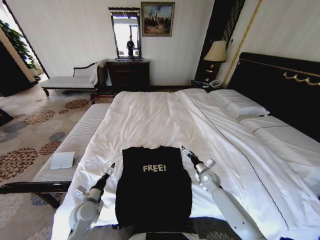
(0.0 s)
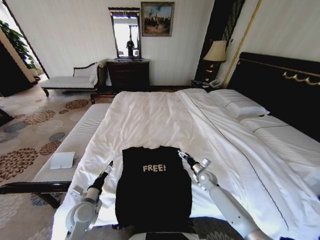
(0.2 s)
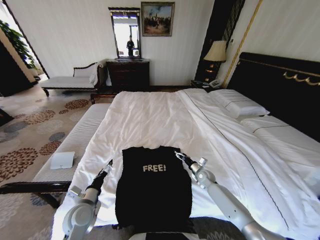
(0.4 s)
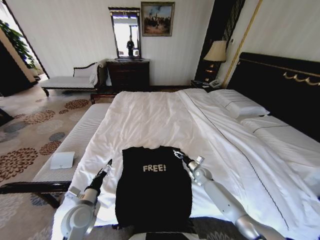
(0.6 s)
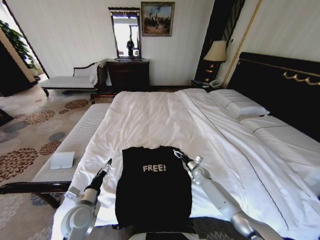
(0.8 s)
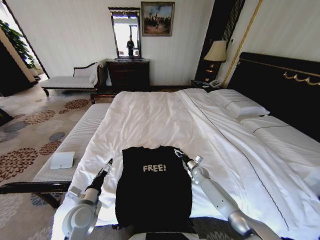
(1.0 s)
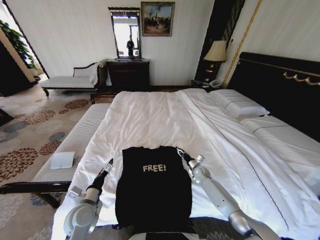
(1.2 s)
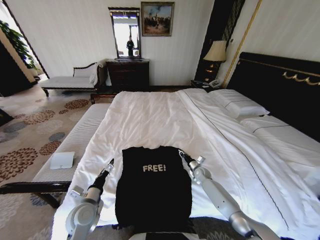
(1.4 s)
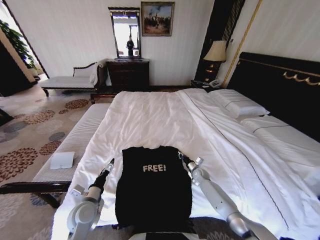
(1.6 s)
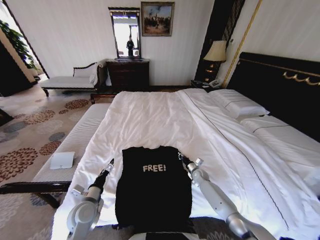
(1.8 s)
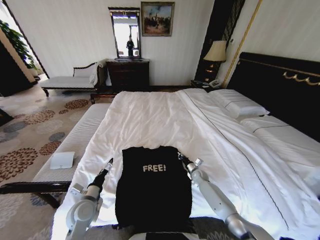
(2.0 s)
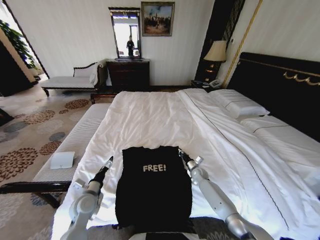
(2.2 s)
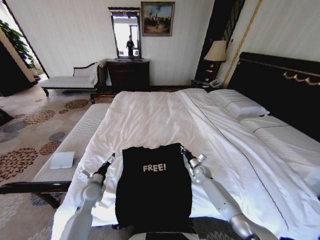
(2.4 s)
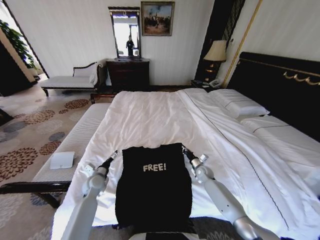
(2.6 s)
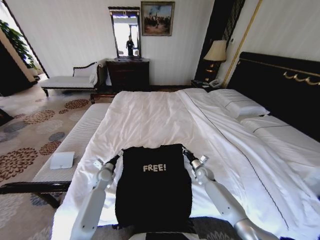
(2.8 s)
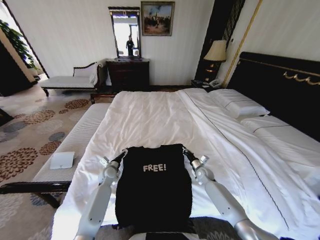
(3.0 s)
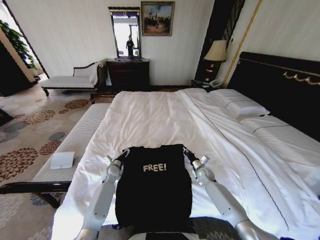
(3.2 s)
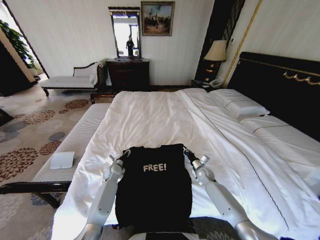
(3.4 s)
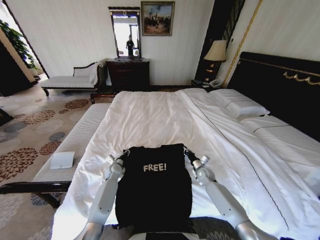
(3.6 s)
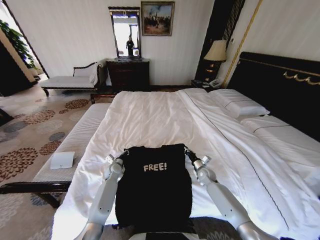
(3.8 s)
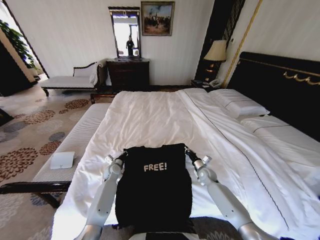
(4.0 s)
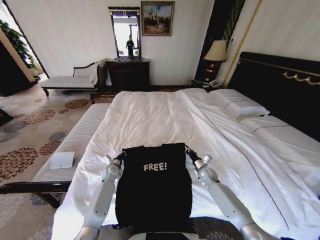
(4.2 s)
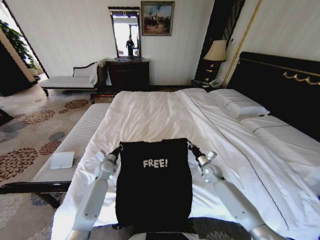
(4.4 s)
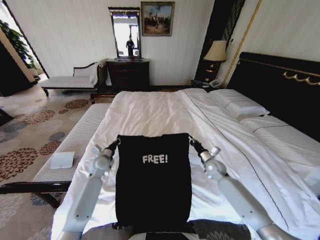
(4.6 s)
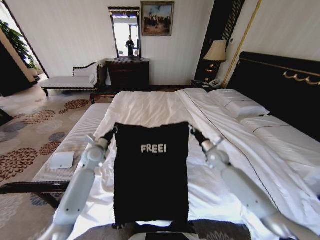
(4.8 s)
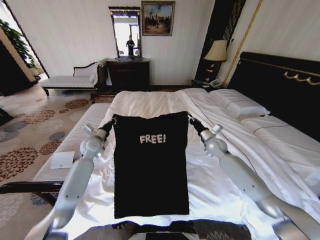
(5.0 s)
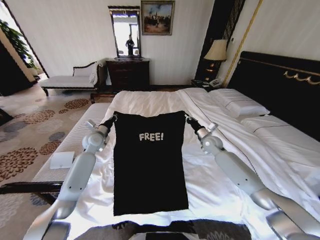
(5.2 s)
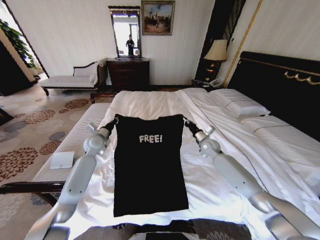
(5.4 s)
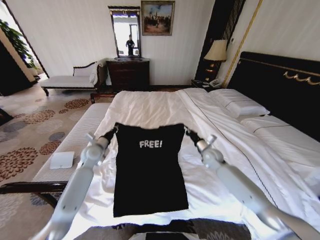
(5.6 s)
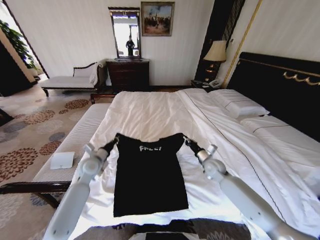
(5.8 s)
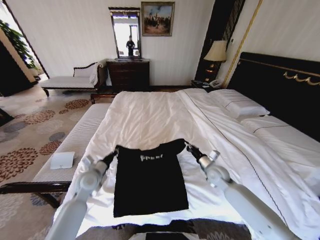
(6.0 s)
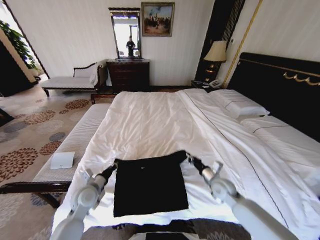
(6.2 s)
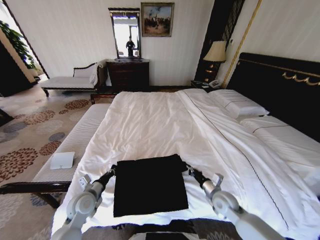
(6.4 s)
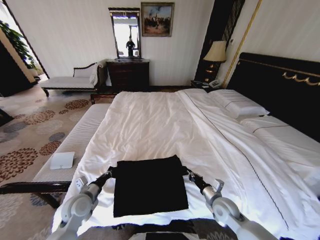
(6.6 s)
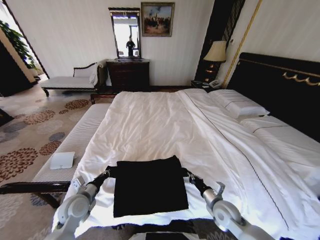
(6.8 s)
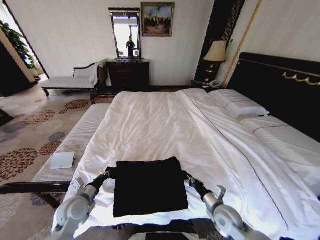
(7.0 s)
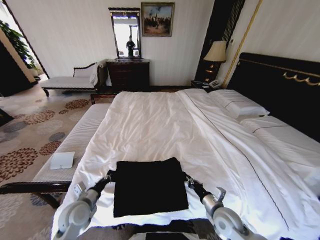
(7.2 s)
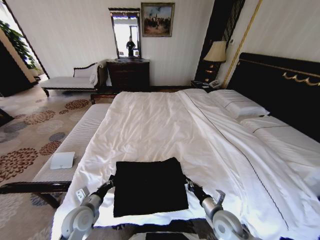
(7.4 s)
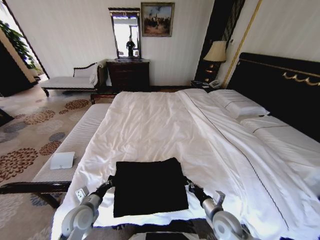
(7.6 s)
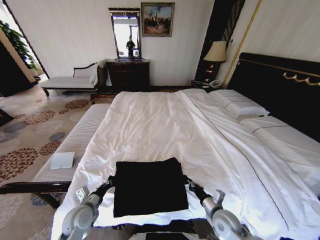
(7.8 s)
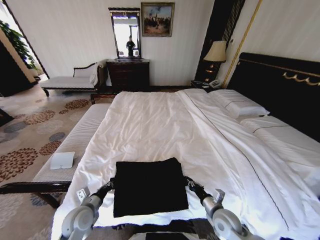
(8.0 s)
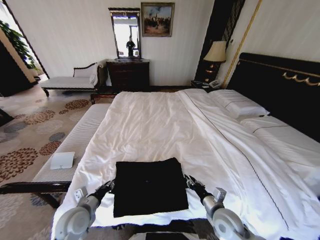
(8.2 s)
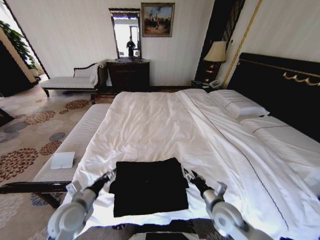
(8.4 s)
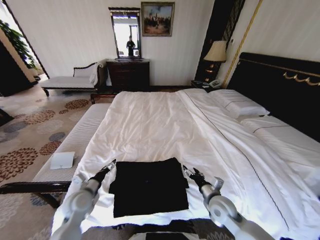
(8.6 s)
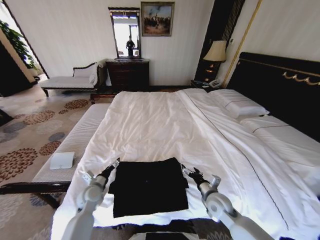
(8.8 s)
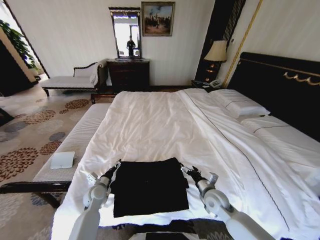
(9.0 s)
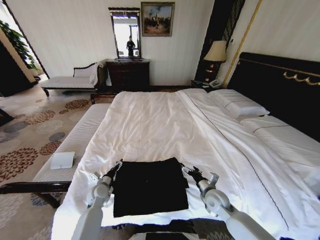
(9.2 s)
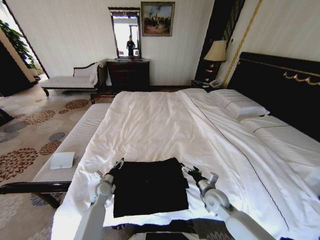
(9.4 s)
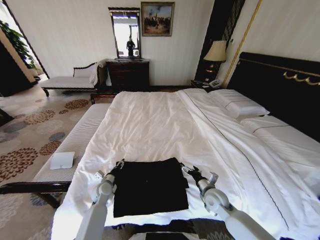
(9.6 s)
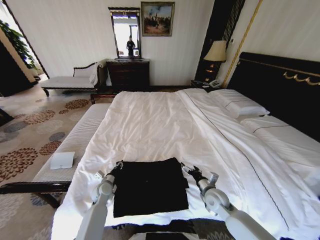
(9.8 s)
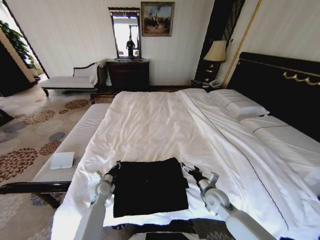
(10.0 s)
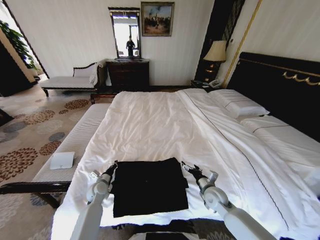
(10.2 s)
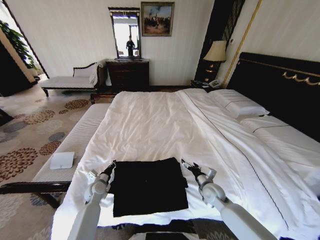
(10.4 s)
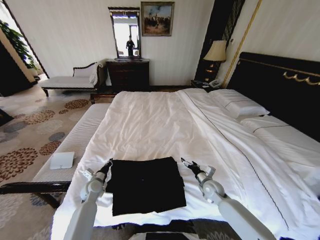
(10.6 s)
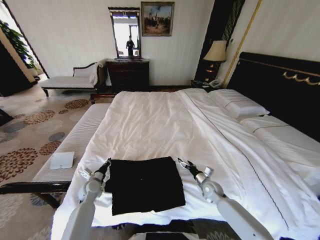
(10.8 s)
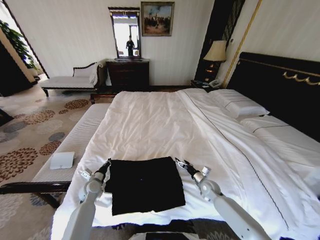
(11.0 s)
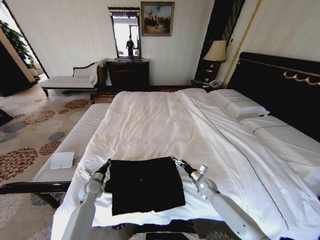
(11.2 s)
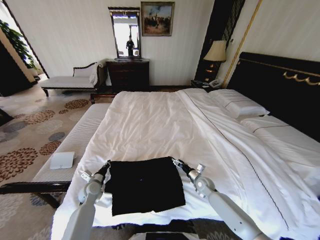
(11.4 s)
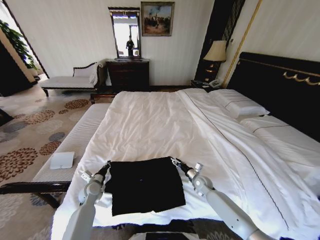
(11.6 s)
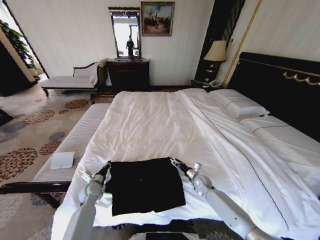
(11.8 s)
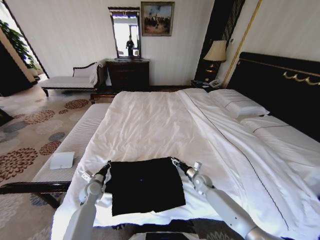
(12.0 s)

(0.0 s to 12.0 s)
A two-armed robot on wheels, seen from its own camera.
Task of the whole recording: Fold the clothes on the bed.
0.0 s - 1.6 s: The right gripper goes roughly 10 cm downward and forward, and closes up.
1.6 s - 3.0 s: The left gripper is displaced forward by some 20 cm.
3.0 s - 4.4 s: The right gripper goes some 5 cm upward, while the left gripper closes its fingers.
4.4 s - 6.0 s: The left gripper is displaced backward and upward by some 15 cm. The right gripper goes some 5 cm upward, and travels forward and back again, roughly 10 cm each way.
6.0 s - 7.6 s: The right gripper moves backward, about 20 cm, while the left gripper moves backward and downward, about 10 cm.
7.6 s - 9.0 s: The right gripper goes some 10 cm forward, and opens up. The left gripper travels forward and downward by some 10 cm, and opens.
9.0 s - 10.4 s: The left gripper closes.
10.4 s - 12.0 s: The right gripper is displaced forward and downward by approximately 10 cm, and closes.

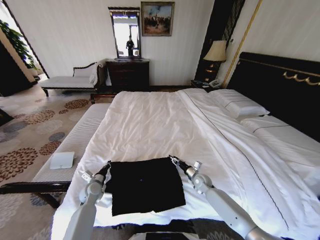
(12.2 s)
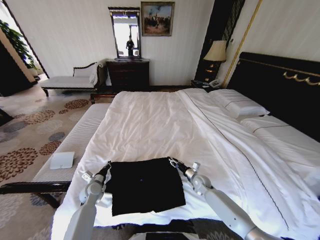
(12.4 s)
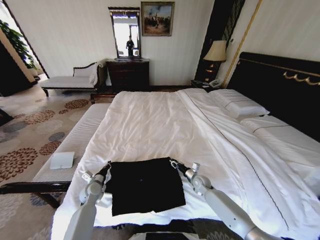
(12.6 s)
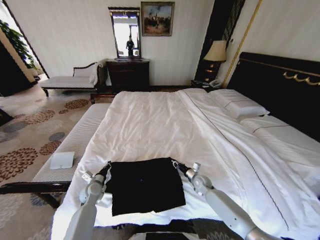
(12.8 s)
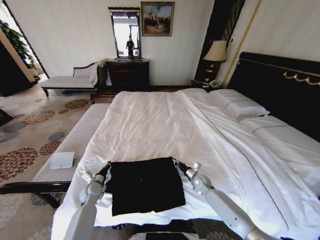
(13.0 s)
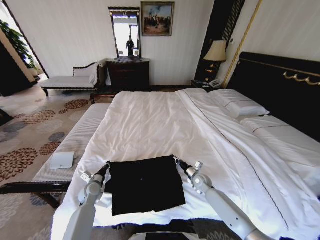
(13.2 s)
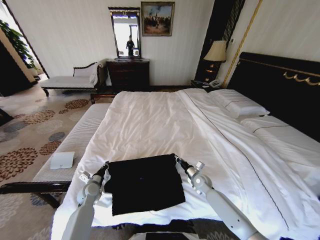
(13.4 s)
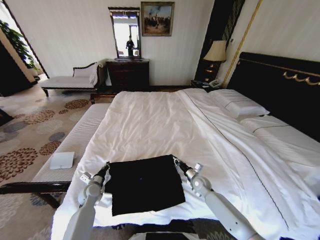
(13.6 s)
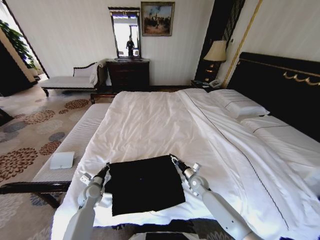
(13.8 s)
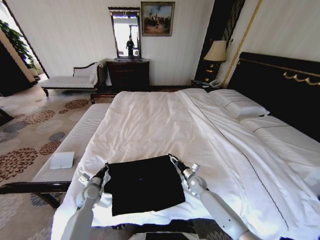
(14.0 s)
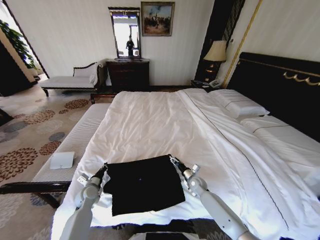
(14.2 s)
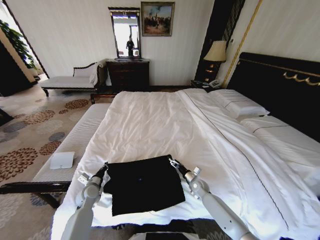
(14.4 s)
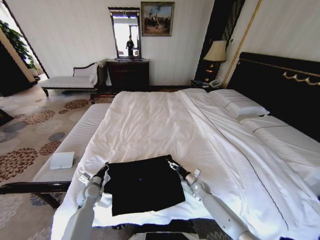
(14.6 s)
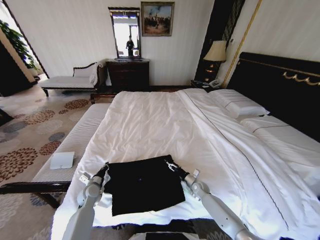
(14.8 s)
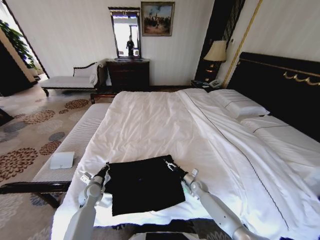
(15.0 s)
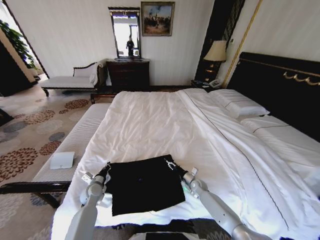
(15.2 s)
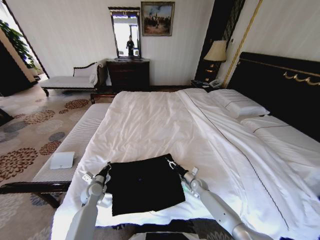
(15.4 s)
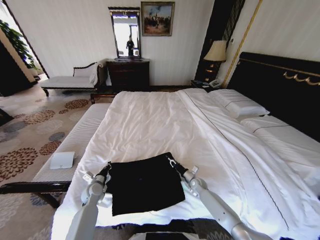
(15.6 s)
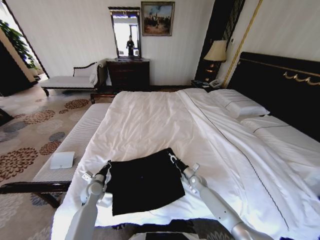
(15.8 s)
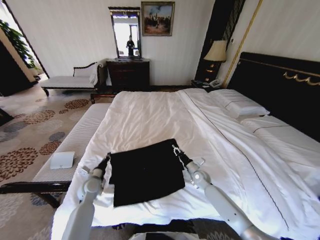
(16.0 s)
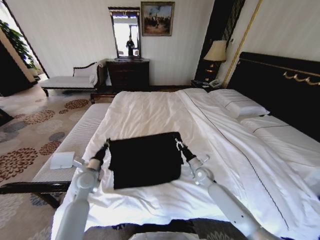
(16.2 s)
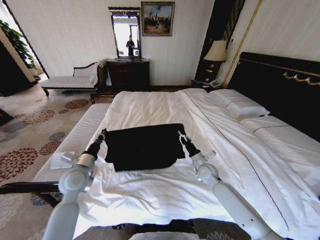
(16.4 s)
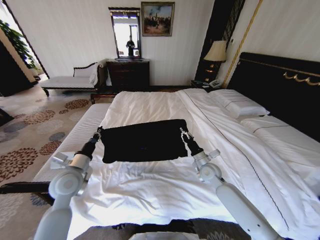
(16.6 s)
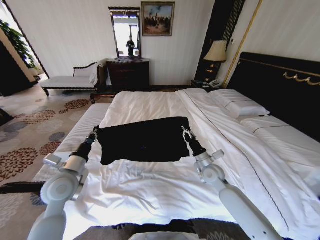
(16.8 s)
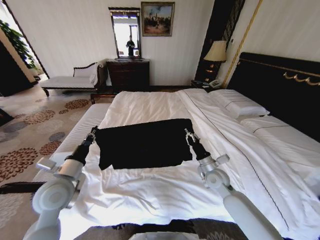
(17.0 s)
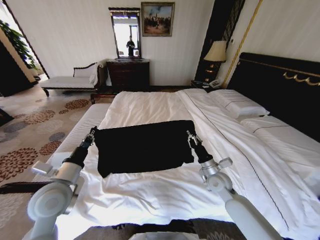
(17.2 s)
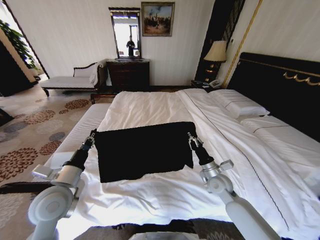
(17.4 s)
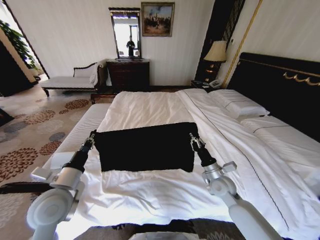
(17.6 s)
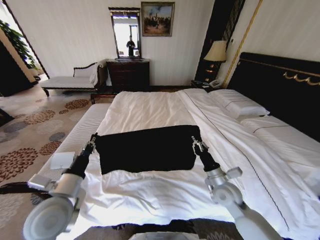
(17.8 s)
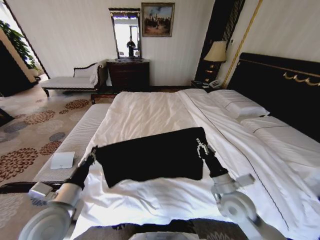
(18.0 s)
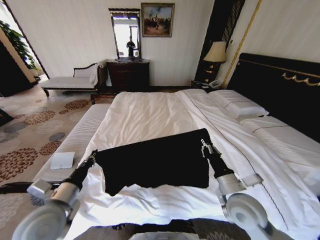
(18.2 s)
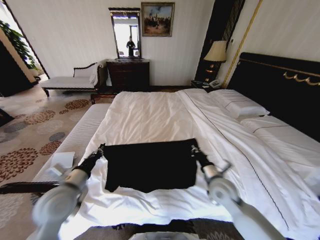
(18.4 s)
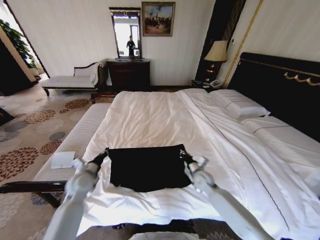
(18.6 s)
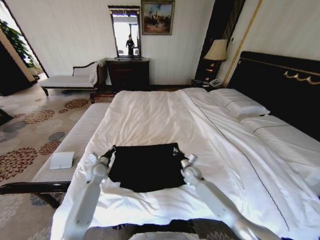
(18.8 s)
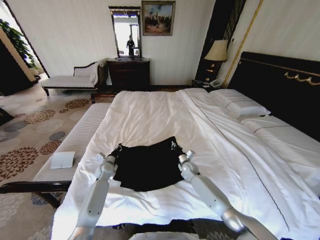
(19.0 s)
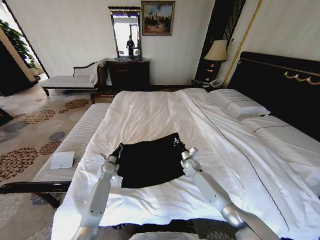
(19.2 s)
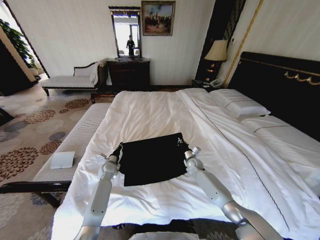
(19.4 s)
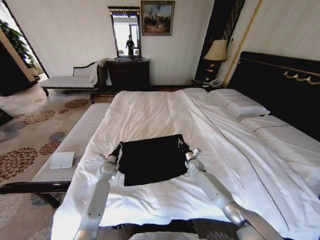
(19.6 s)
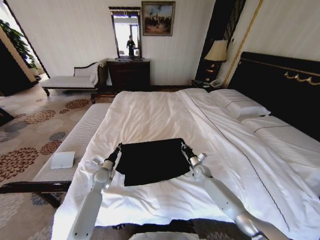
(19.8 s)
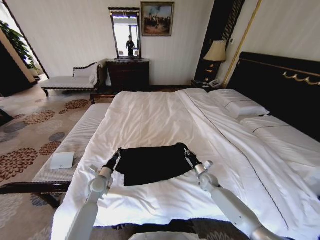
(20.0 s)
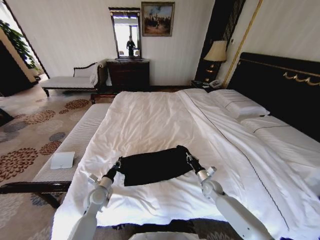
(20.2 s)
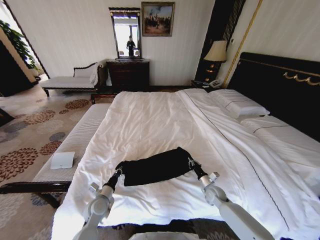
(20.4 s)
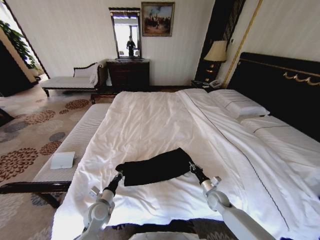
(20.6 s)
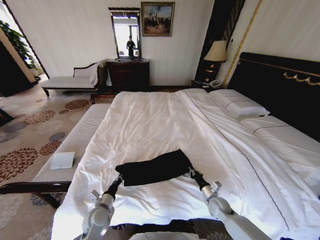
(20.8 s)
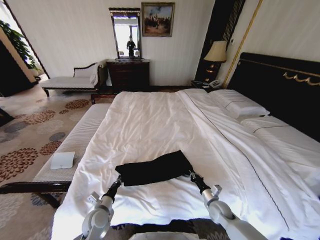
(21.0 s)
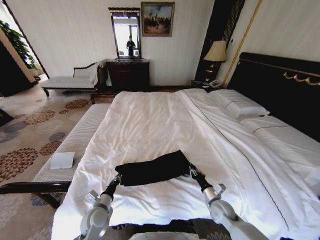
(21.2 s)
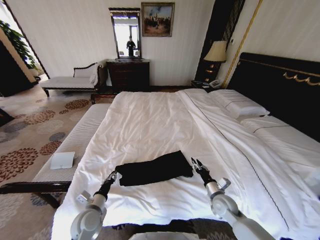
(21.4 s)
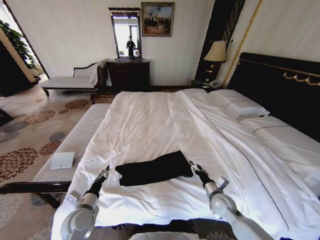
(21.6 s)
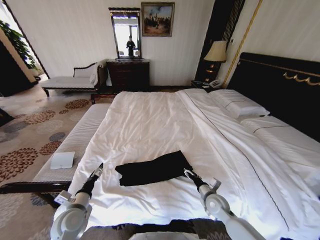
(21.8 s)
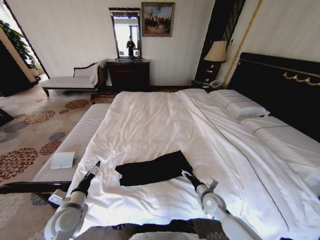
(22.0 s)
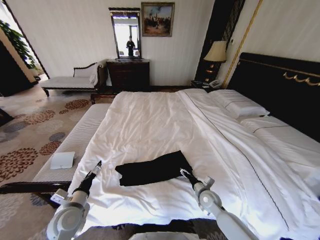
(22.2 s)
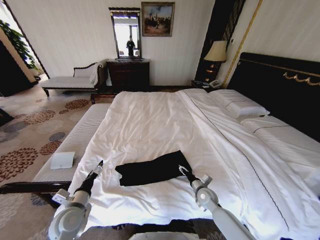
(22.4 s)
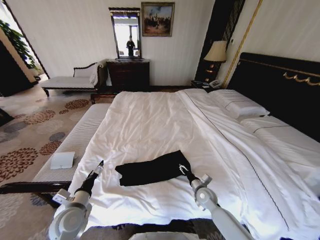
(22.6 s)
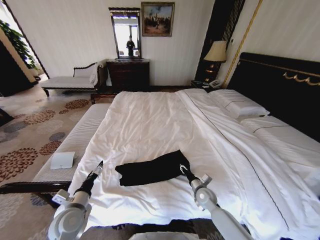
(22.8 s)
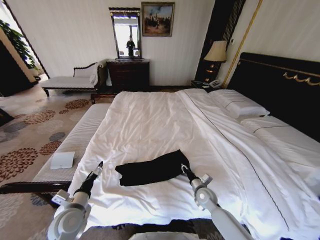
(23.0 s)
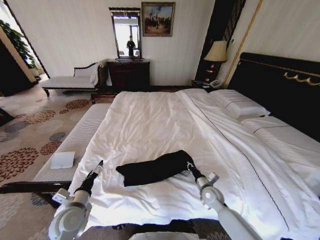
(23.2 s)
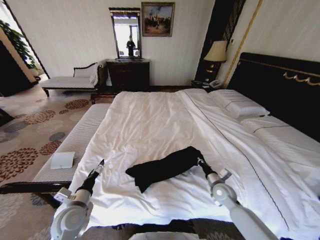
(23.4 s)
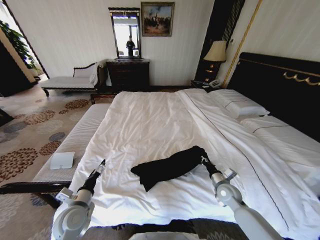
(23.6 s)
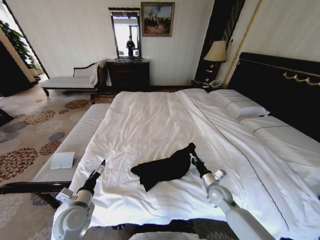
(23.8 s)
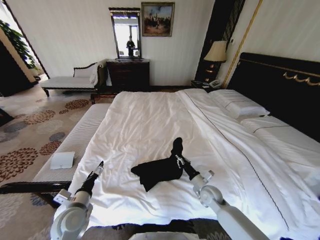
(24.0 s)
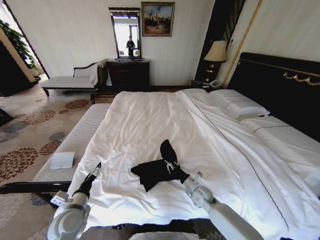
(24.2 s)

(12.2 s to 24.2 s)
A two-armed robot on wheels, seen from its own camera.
Task of the whole recording: Fold the clothes on the bed.
12.2 s - 13.8 s: The right gripper closes, then reopens.
13.8 s - 15.2 s: The right gripper shifts some 5 cm downward, and opens, then closes once more.
15.2 s - 16.6 s: The two grippers go roughly 20 cm upward. The right gripper closes.
16.6 s - 18.2 s: The left gripper moves backward, about 10 cm. The right gripper goes some 20 cm backward and upward.
18.2 s - 19.8 s: The two grippers go roughly 30 cm forward and downward.
19.8 s - 21.2 s: Both grippers travel together backward, some 20 cm.
21.2 s - 22.6 s: The left gripper heads upward and to the left, covering roughly 10 cm, and opens up. The right gripper heads forward and to the left, covering about 10 cm, and opens its fingers.
22.6 s - 24.2 s: The right gripper reaches about 10 cm to the right, then returns, and closes its fingers.
